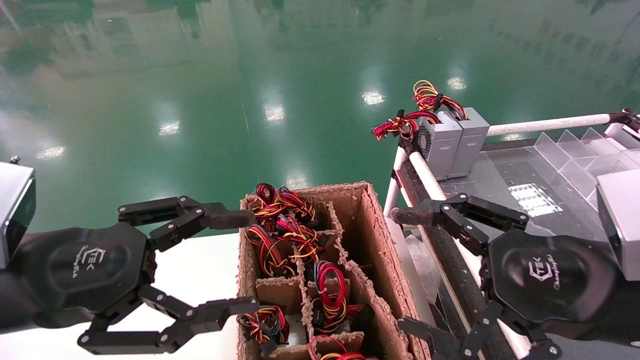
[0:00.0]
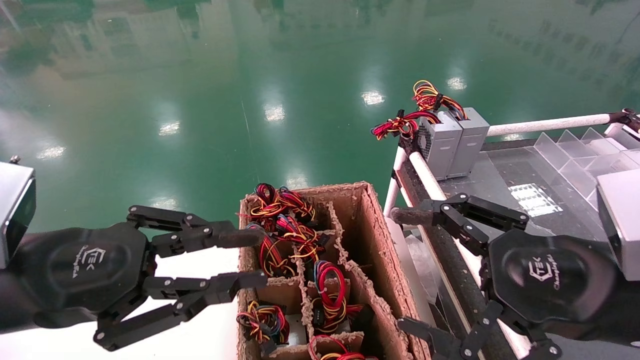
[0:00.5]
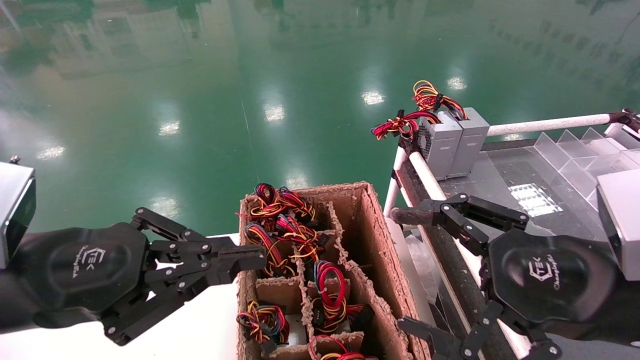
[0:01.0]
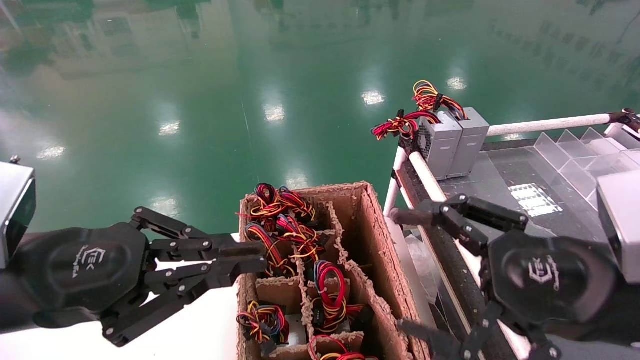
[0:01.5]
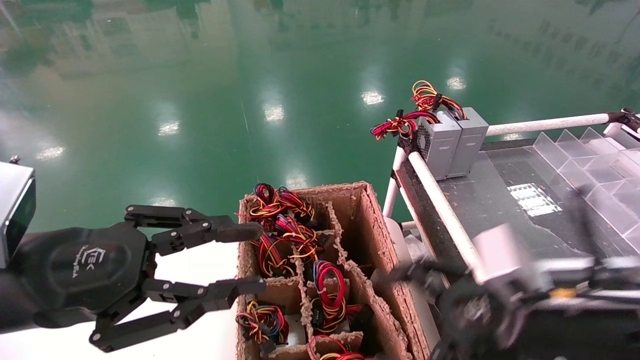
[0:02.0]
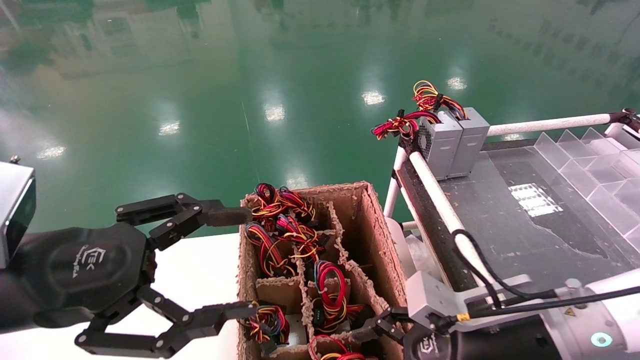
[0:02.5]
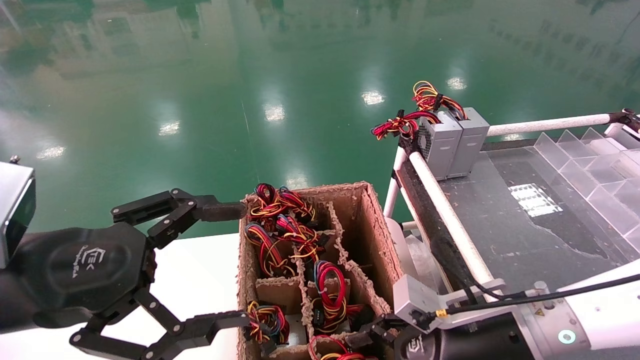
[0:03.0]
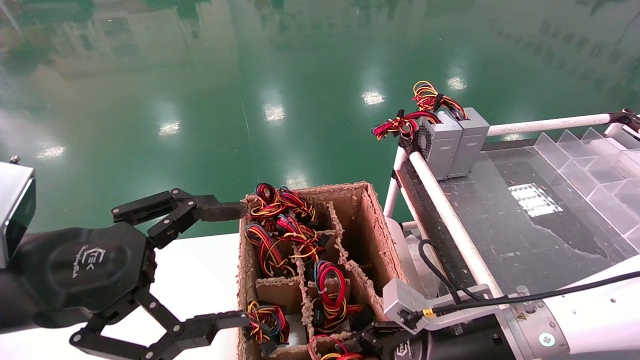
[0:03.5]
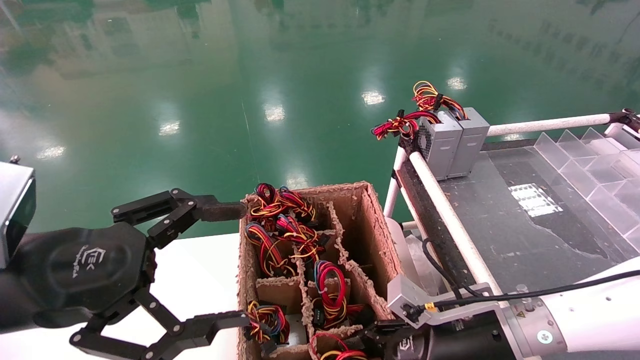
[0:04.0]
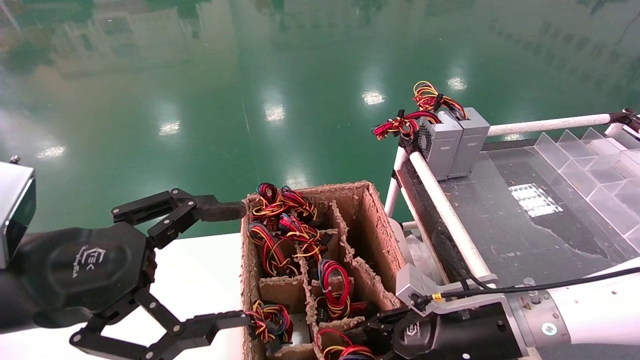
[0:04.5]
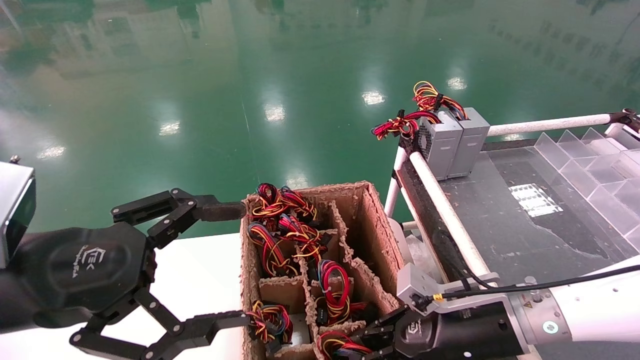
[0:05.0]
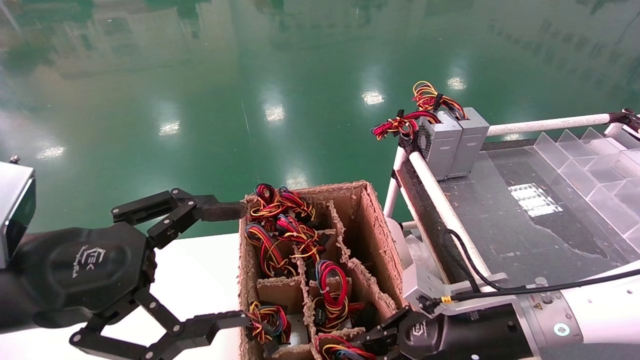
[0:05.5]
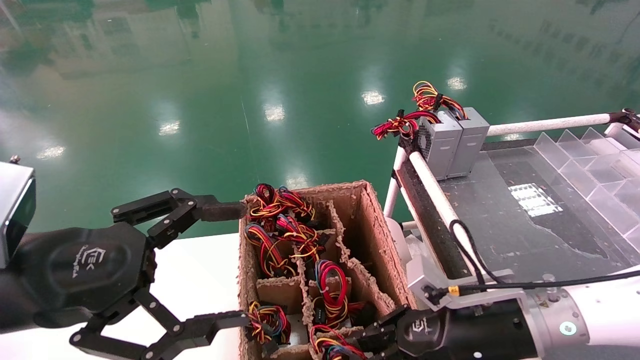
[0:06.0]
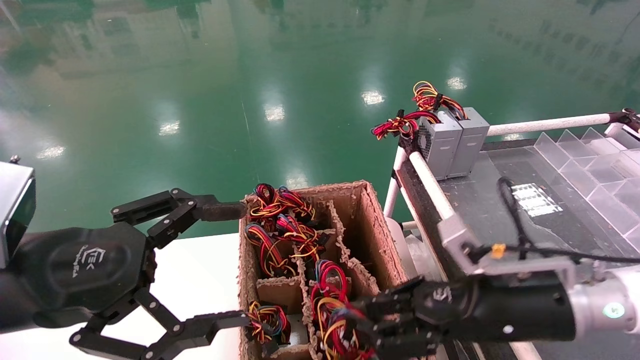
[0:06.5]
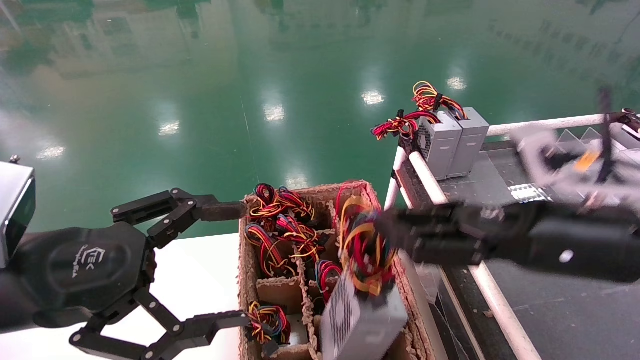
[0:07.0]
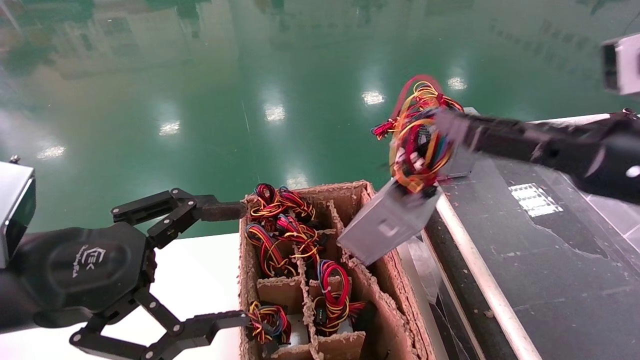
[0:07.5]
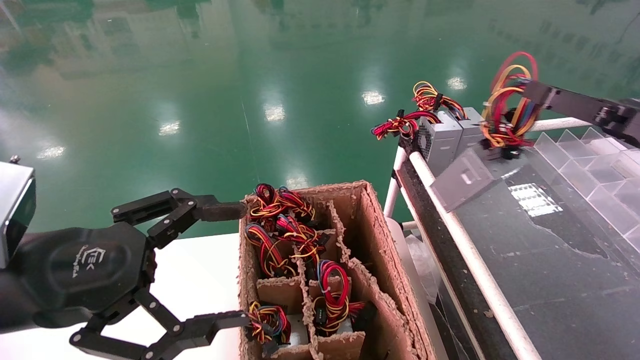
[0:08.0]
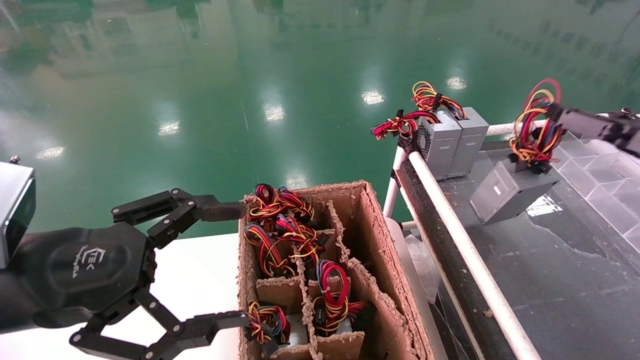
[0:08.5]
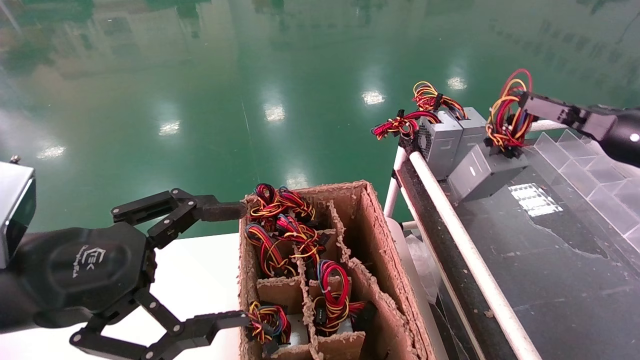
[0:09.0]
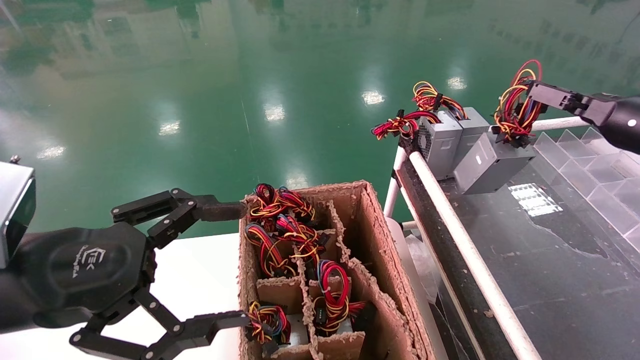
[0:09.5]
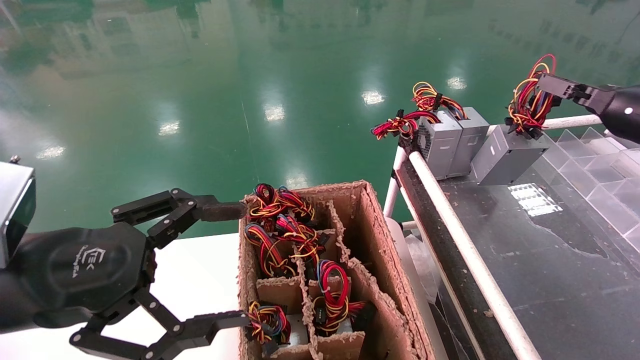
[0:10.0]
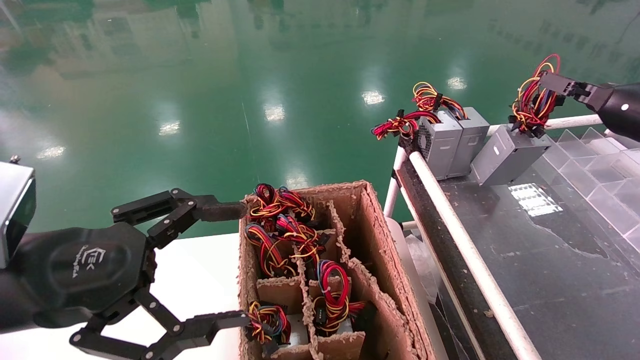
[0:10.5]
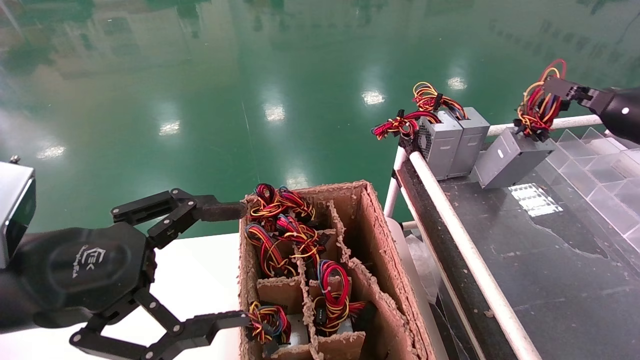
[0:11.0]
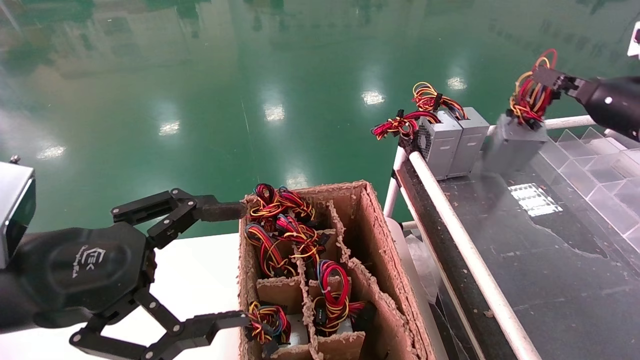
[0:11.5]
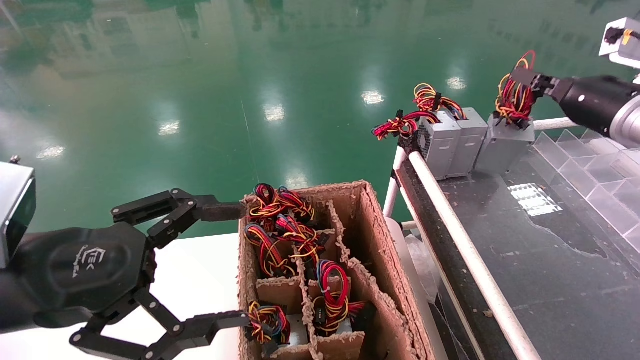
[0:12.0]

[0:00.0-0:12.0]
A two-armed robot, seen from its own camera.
Step, 0:01.0 to 0:05.0: Grab and lift the power supply from the large box.
0:00.0 to 0:02.0: The right gripper moves downward, roughly 5 cm. The left gripper closes its fingers.
0:02.0 to 0:04.0: The right gripper is displaced downward and forward by roughly 10 cm. The left gripper opens.
0:04.0 to 0:06.0: The right gripper closes.
0:06.0 to 0:08.0: The right gripper heads to the right and upward, covering about 25 cm.
0:08.0 to 0:10.0: The right gripper heads forward, covering approximately 10 cm.
0:10.0 to 0:12.0: The right gripper moves roughly 5 cm.

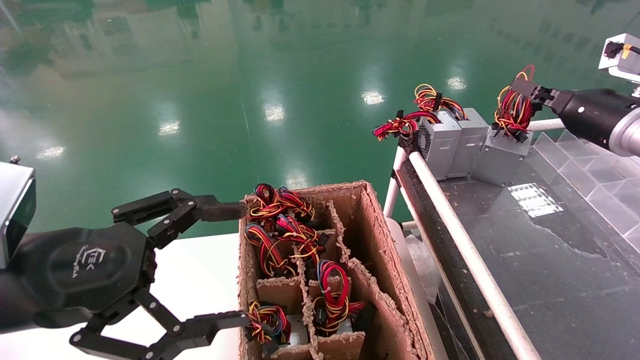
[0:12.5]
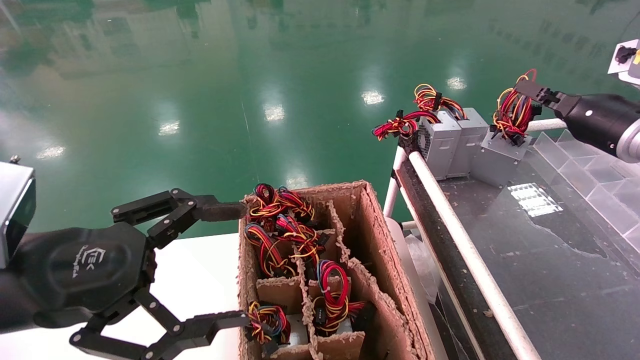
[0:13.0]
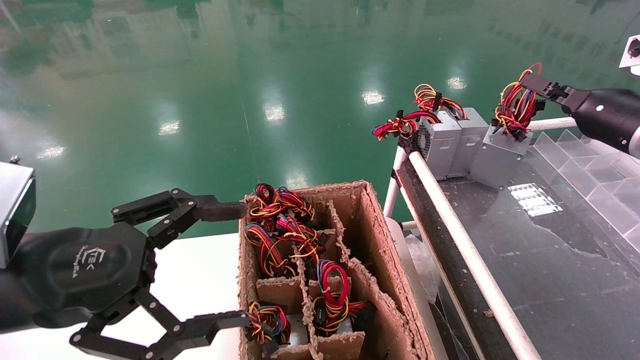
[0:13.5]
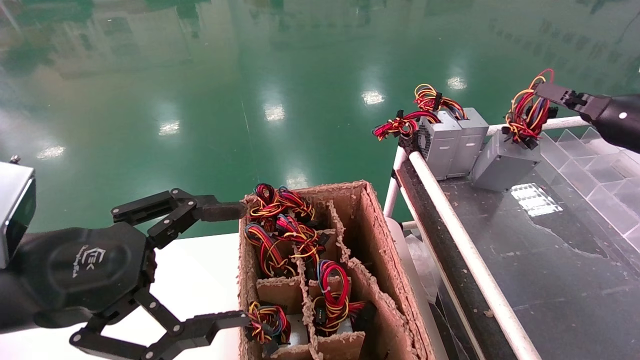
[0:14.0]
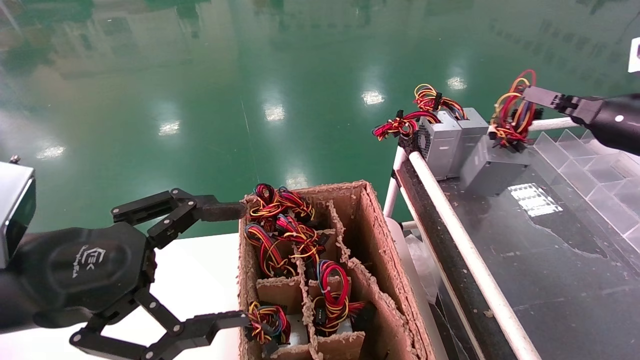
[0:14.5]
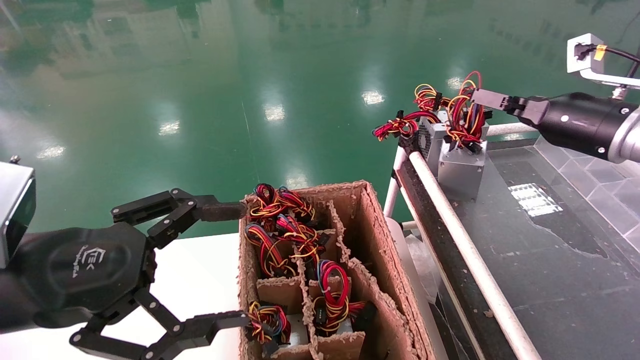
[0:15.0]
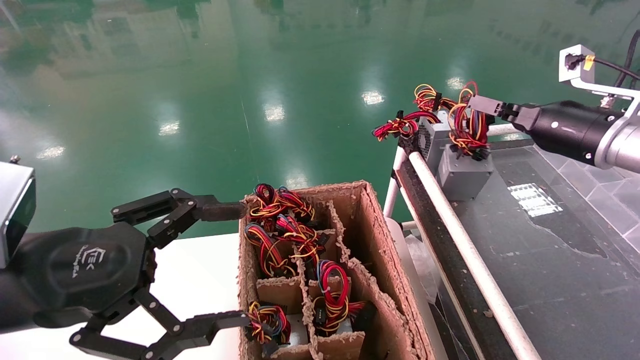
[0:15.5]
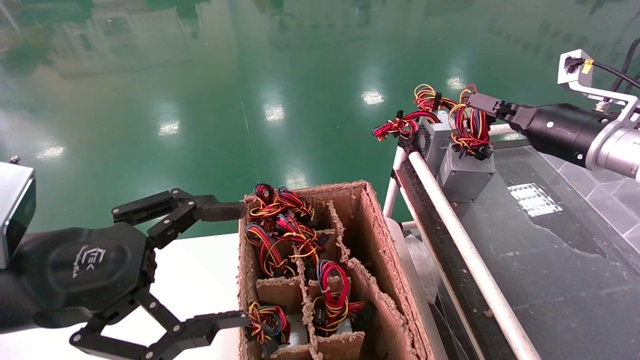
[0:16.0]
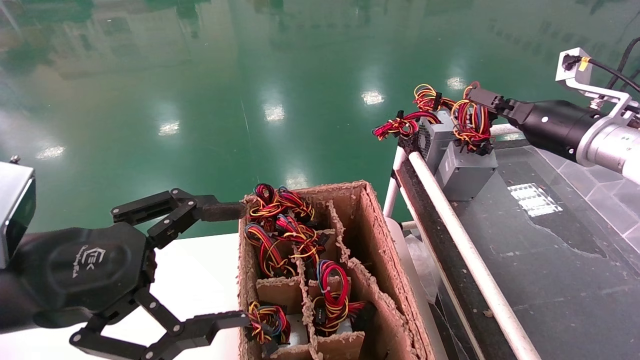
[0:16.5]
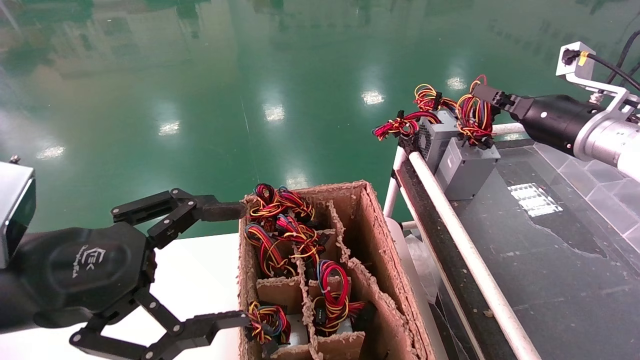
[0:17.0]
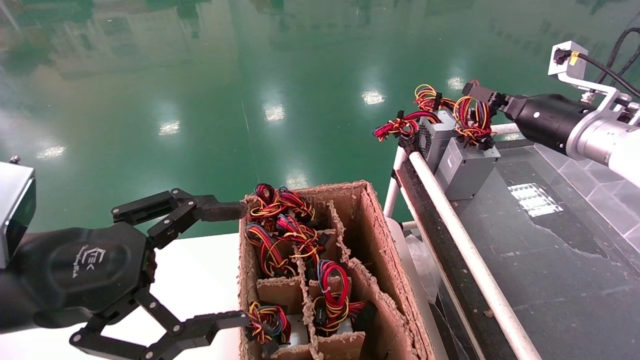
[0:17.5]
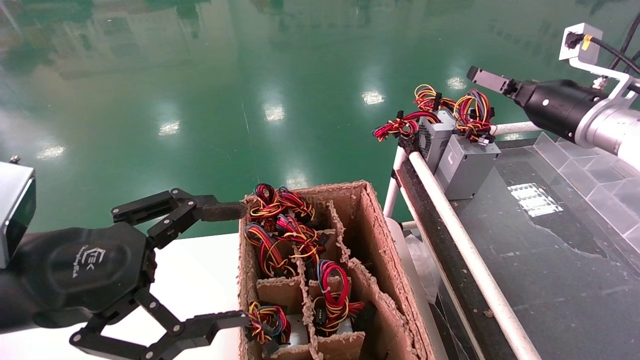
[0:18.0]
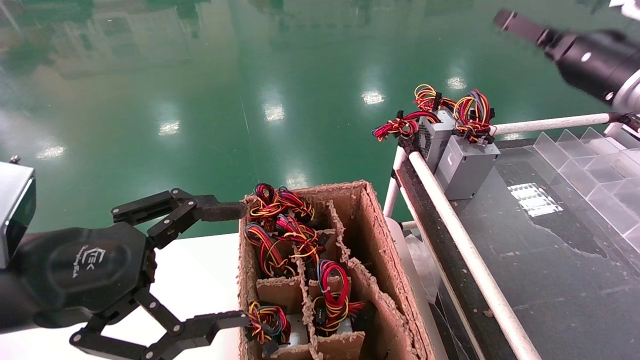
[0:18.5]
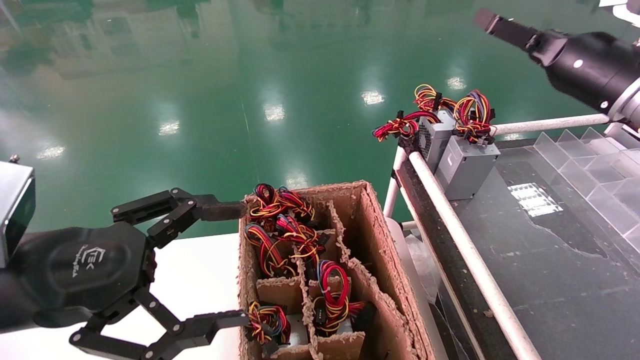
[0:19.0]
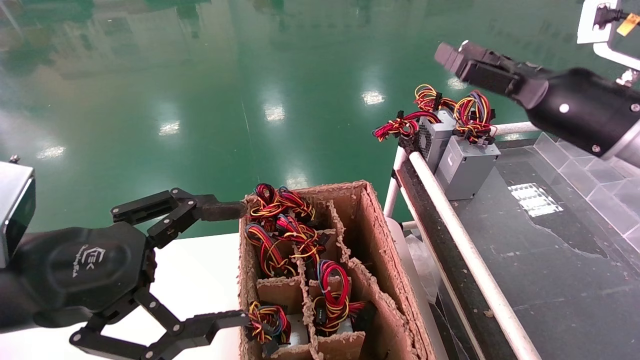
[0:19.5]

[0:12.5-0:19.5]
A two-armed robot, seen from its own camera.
Step, 0:12.5 to 0:17.5: Place the power supply on the operating table.
0:12.5 to 0:14.5: The grippers move only a little.
0:14.5 to 0:16.0: The right gripper shifts roughly 5 cm to the left.
0:16.0 to 0:17.5: The grippers make only small movements.
0:17.5 to 0:19.5: The right gripper is displaced backward by some 10 cm, and opens its fingers.
